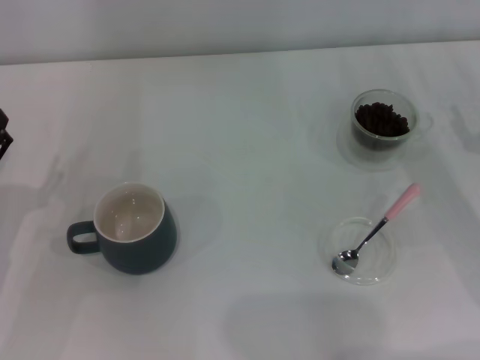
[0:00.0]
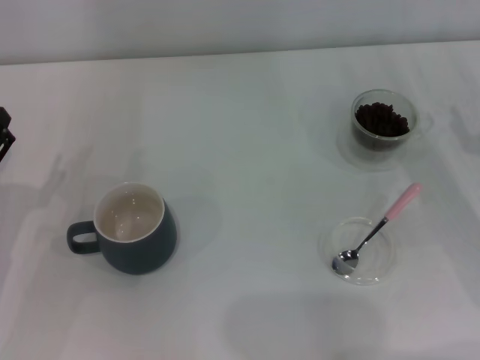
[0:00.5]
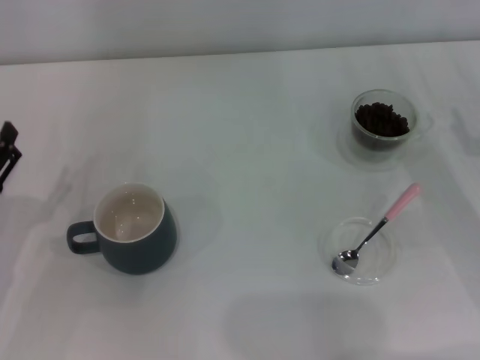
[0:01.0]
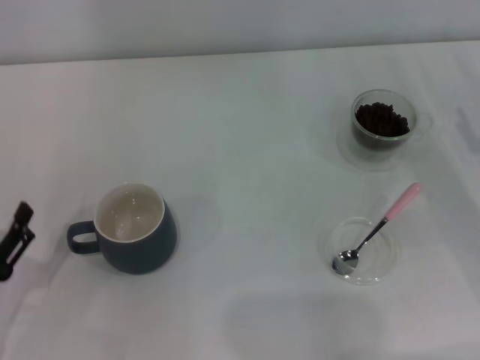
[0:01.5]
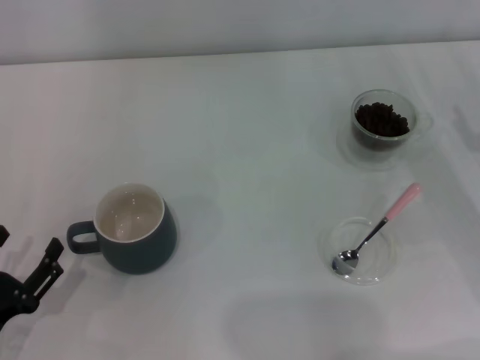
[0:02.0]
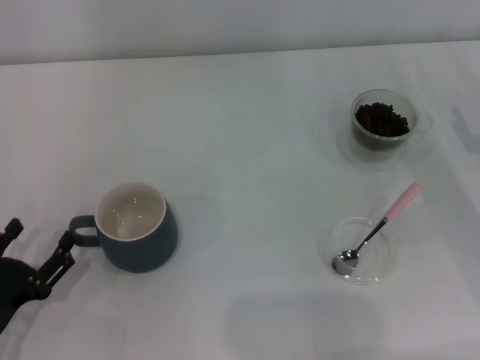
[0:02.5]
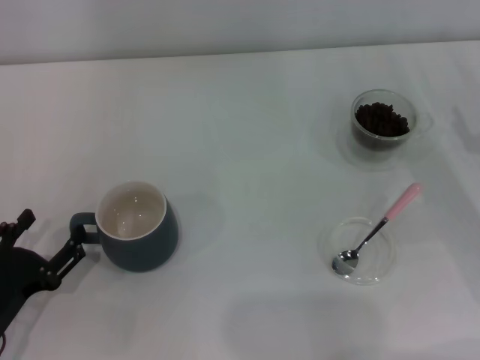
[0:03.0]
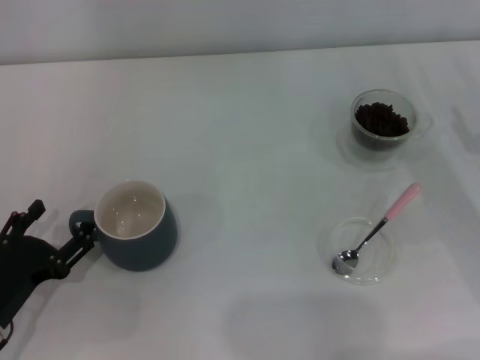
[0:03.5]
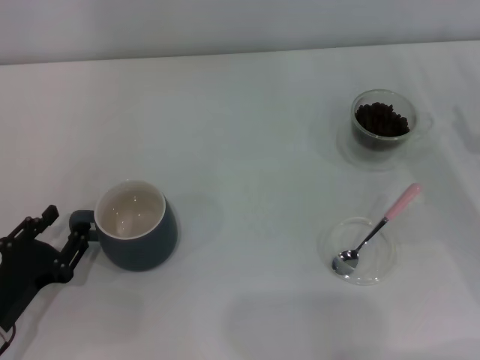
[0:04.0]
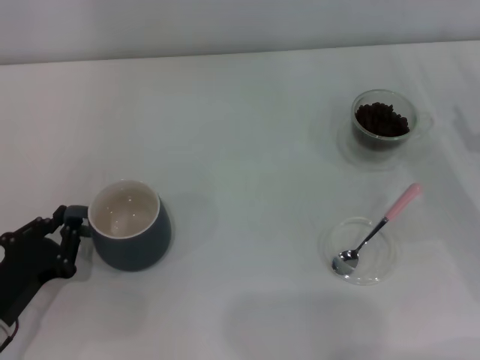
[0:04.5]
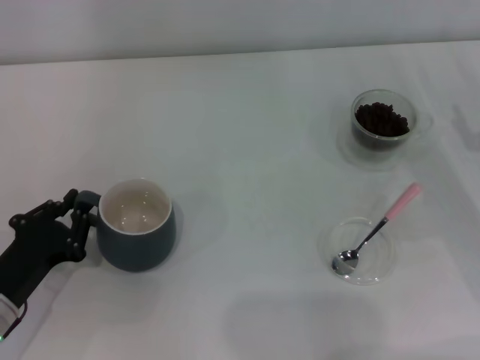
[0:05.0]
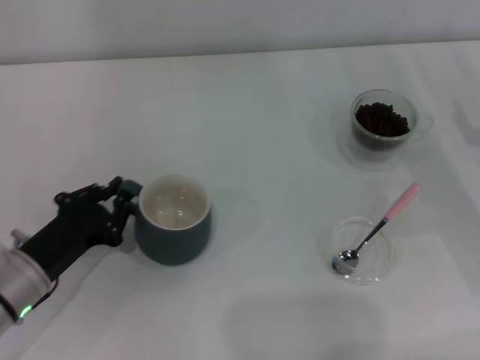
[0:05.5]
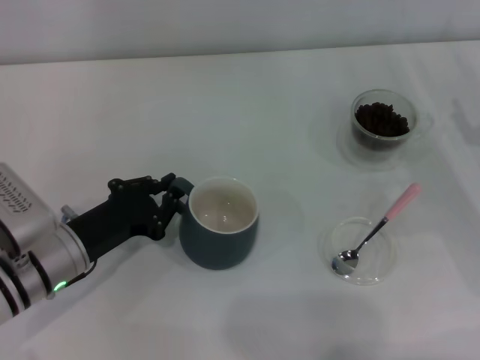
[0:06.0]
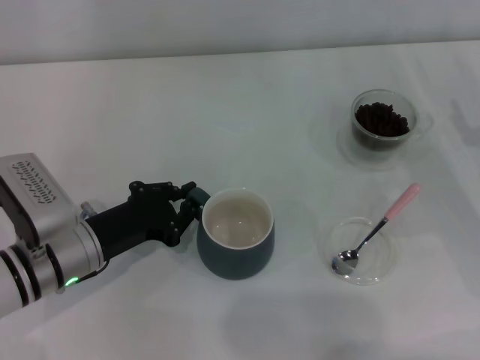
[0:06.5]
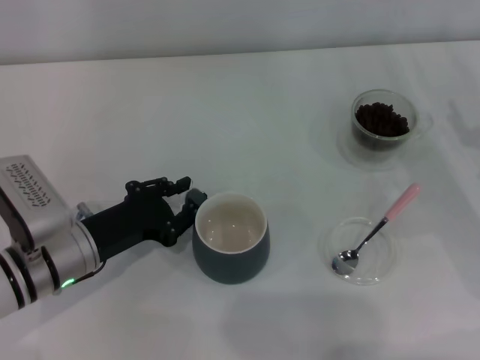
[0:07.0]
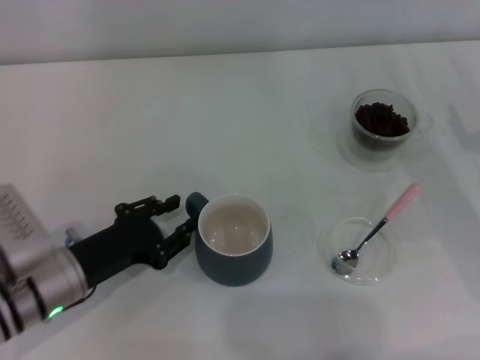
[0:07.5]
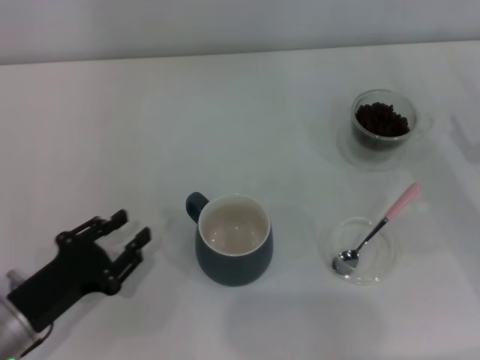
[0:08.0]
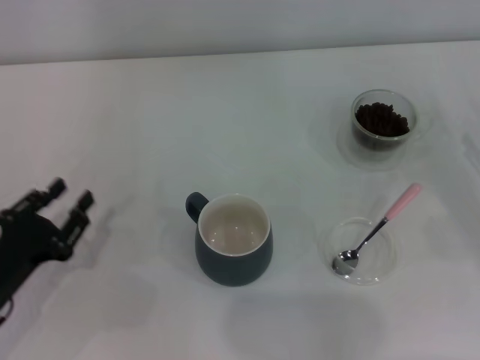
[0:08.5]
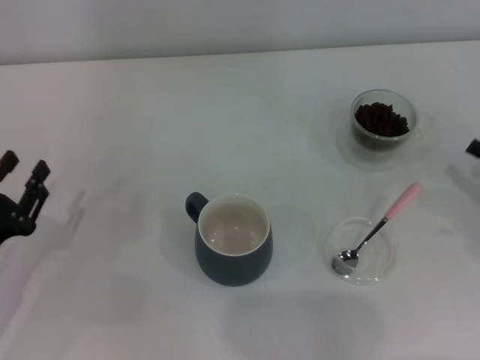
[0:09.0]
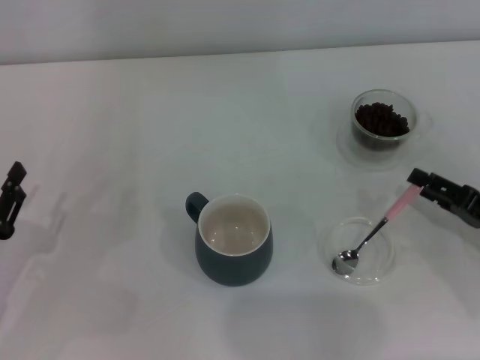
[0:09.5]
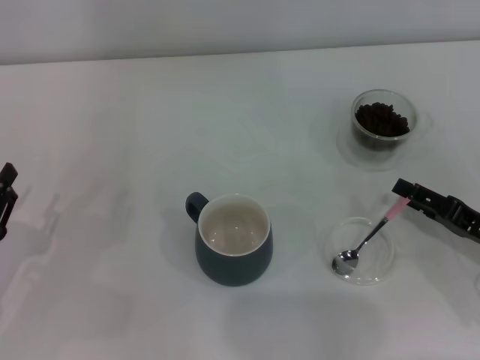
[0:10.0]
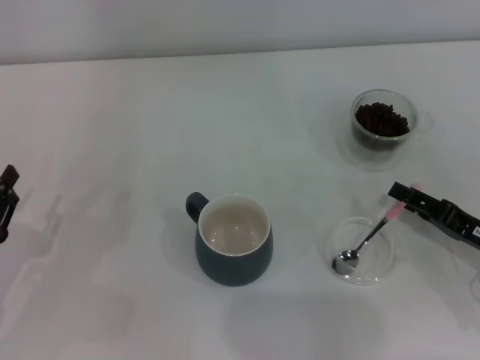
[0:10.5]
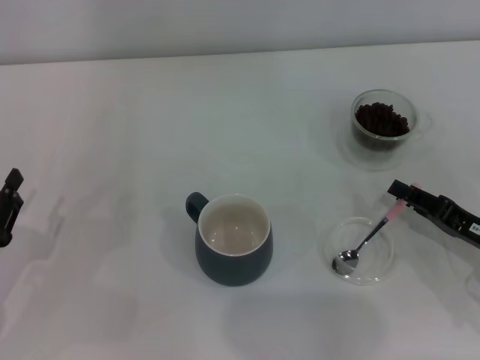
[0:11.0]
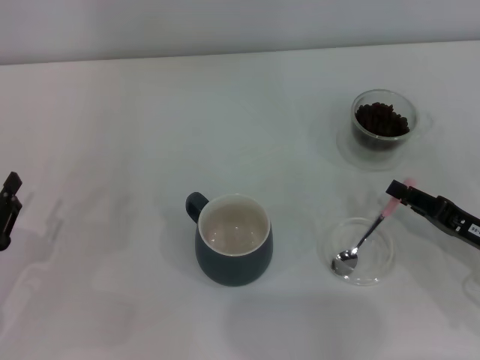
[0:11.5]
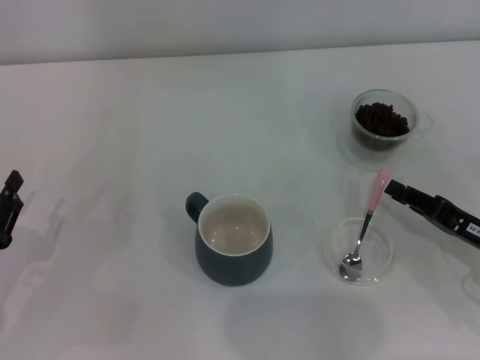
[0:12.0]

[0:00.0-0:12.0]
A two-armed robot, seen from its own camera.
Task of the whole recording: Use a pink spoon to take out the coffee beans from the glass and pour them into the gray cup.
Step, 0:00.0 to 0:07.5: Move the cup to the center of view with the left gripper.
0:00.0 to 0:02.0: The left gripper goes about 10 cm backward.
0:02.0 to 0:04.0: The left gripper moves about 5 cm.
0:04.0 to 0:06.0: The left gripper heads forward and to the right, covering roughly 10 cm, and closes.
0:06.0 to 0:08.0: The left gripper travels backward by roughly 5 cm, and opens its fingers.
0:08.0 to 0:10.0: The right gripper ends up some 5 cm from where it was. The left gripper heads to the left, covering about 5 cm.
0:10.0 to 0:12.0: The right gripper closes.

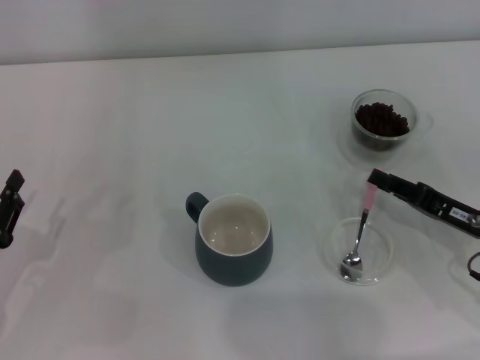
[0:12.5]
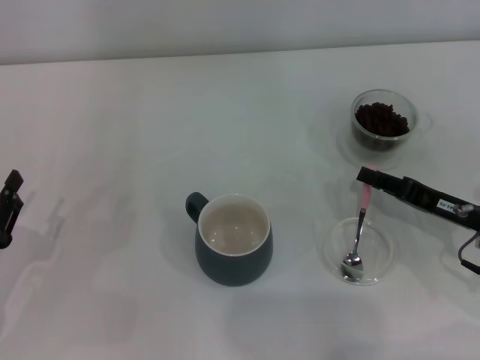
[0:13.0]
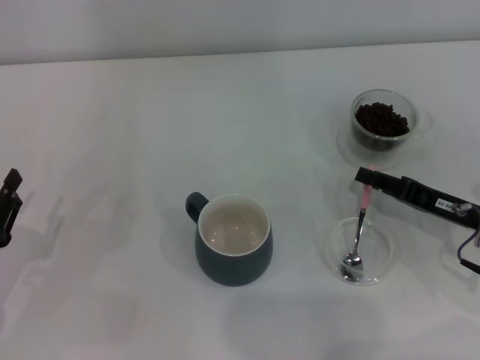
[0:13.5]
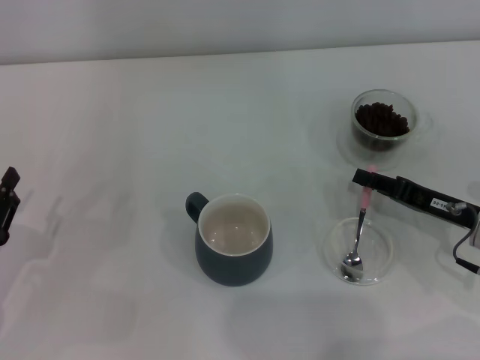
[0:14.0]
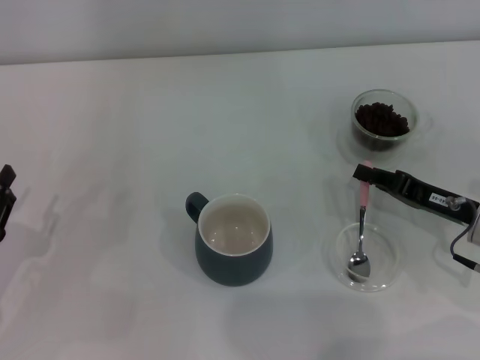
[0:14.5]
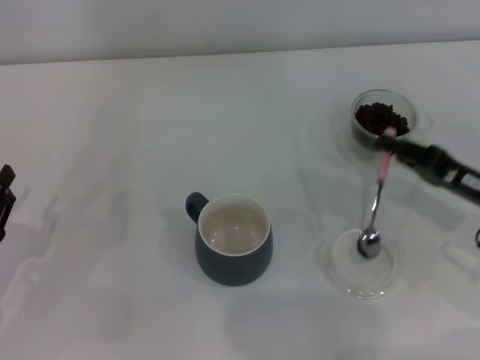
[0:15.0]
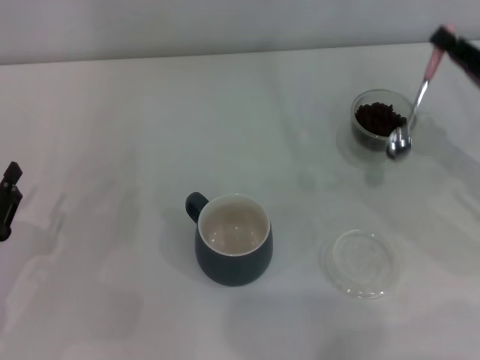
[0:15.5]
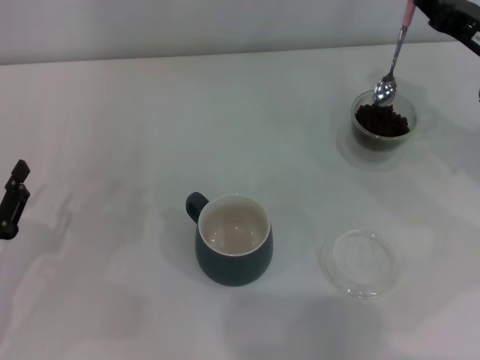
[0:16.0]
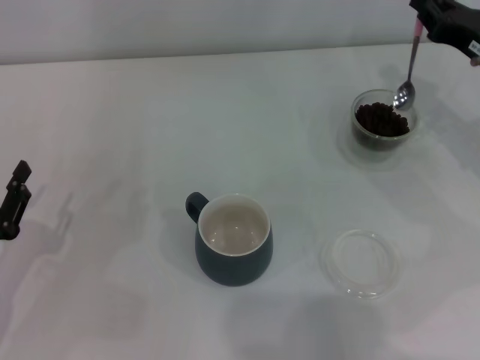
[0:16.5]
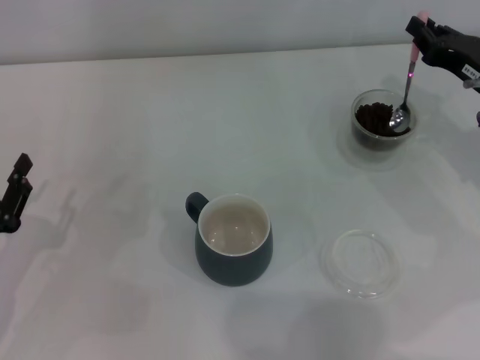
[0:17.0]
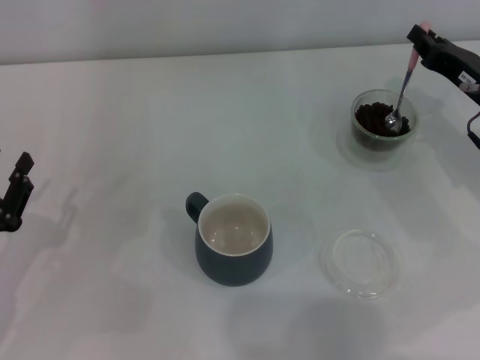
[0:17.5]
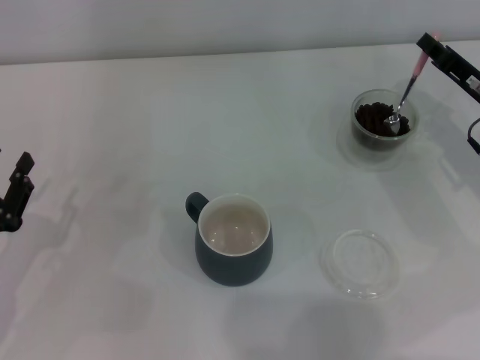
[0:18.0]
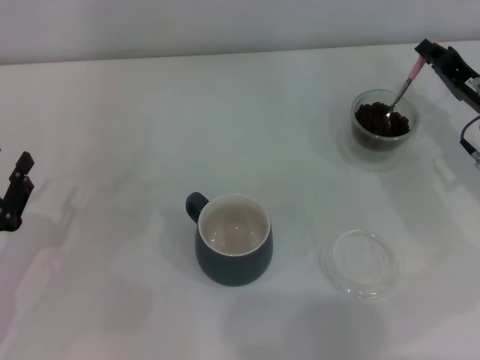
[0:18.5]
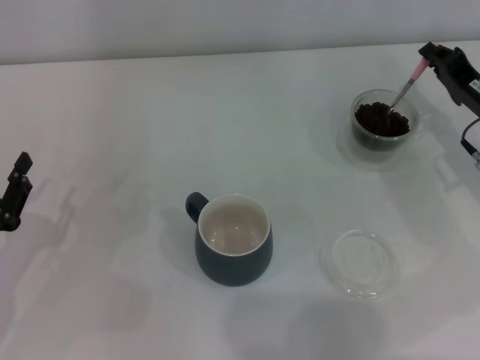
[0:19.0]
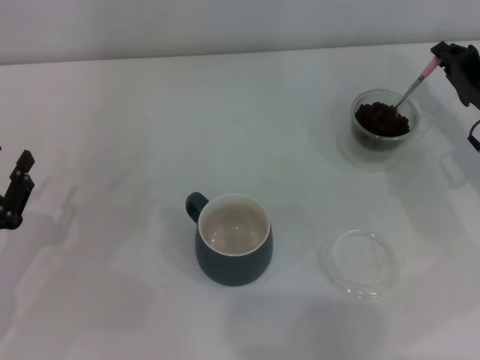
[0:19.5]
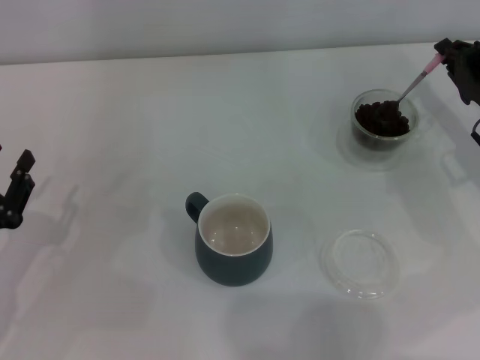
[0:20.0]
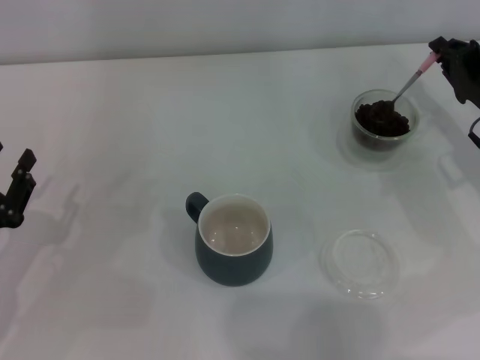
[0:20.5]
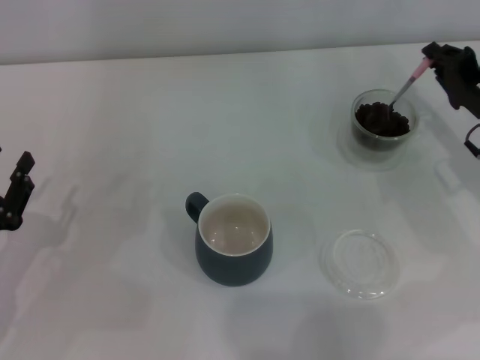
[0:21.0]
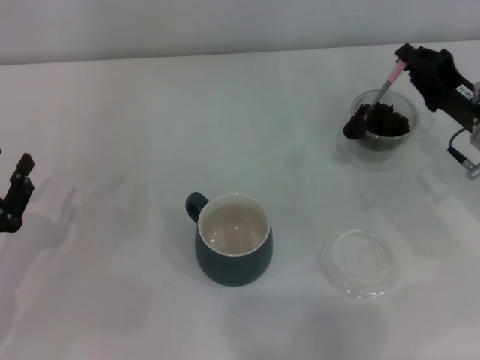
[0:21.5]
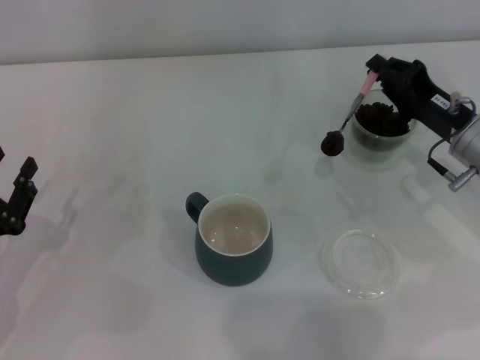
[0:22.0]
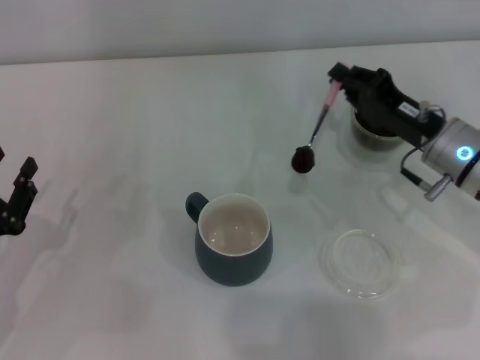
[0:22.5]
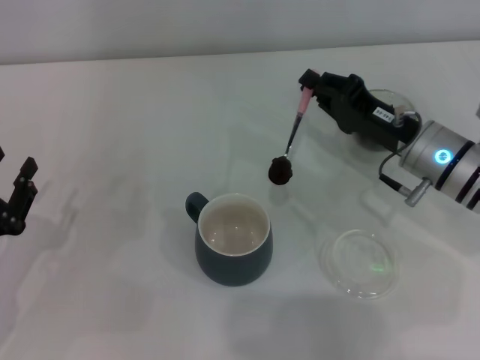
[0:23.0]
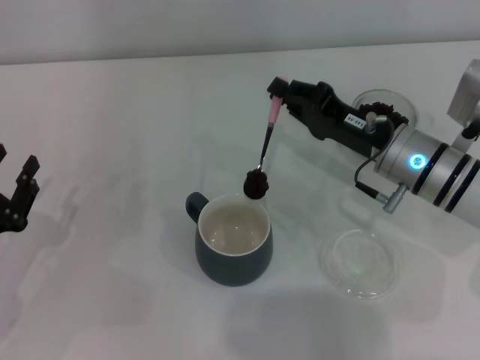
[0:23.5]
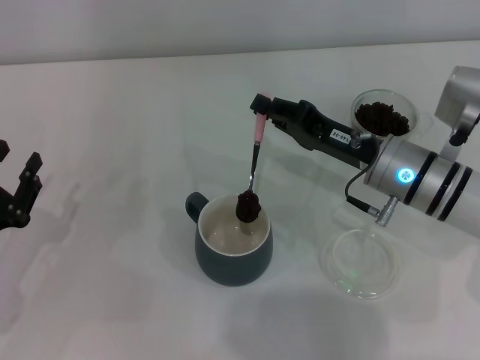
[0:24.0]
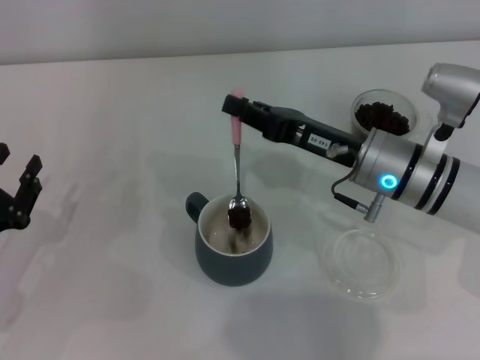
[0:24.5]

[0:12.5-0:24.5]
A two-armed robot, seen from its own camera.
Task of the whole recording: Use a pink spoon to take out the coffee beans from the glass and pour them into the gray cup.
Step, 0:12.5 to 0:15.0: Pick up the spoon with the right gripper.
0:12.5 to 0:14.5: There are only small adjustments of the grippers.
0:14.5 to 0:16.5: The right gripper moves forward and upward, about 15 cm.
0:18.5 to 0:20.5: There are only small adjustments of the grippers.
0:20.5 to 0:22.5: The right gripper travels to the left by roughly 5 cm.
0:22.5 to 0:24.5: The right gripper goes some 10 cm to the left.

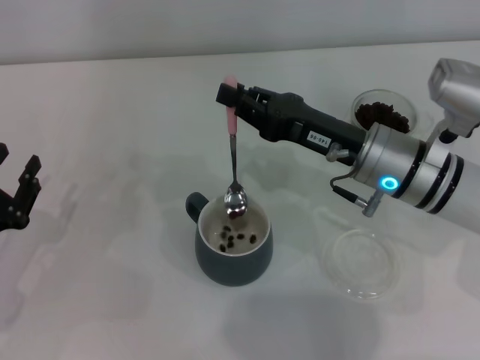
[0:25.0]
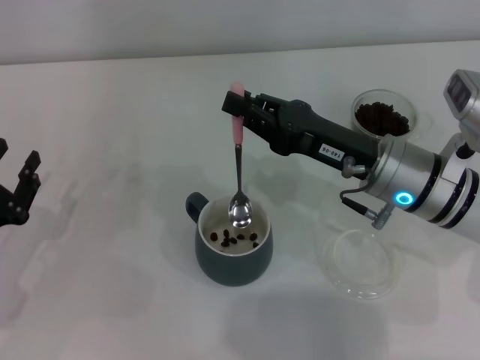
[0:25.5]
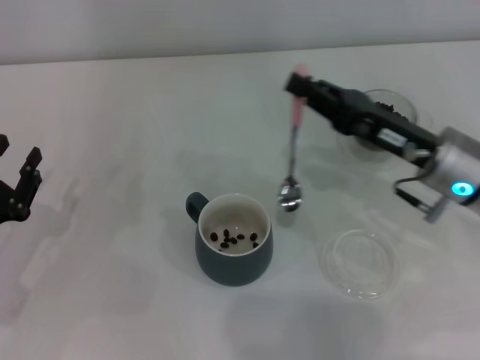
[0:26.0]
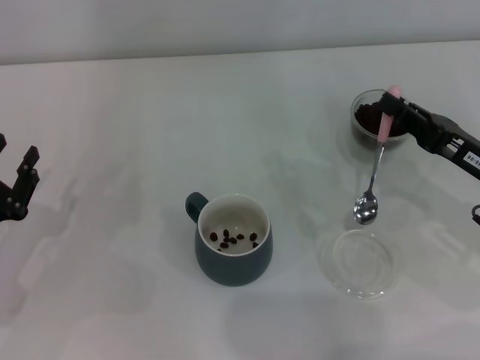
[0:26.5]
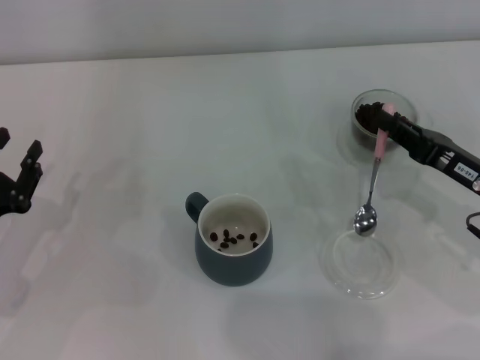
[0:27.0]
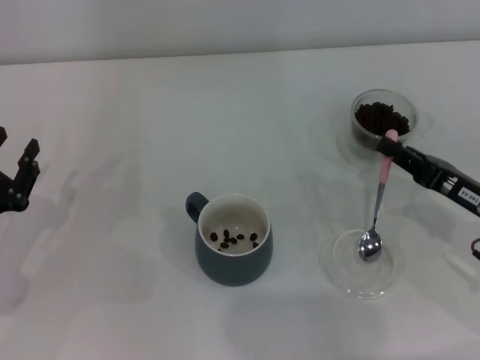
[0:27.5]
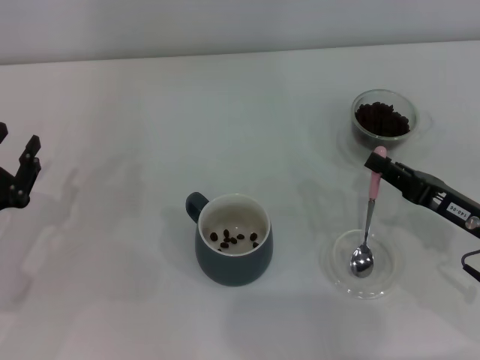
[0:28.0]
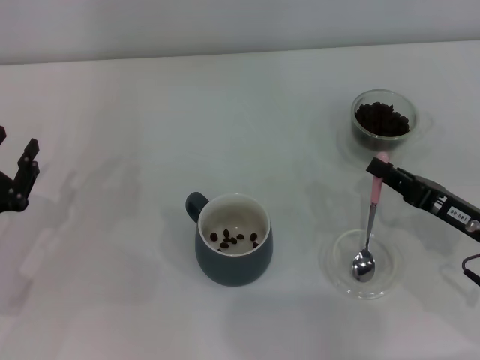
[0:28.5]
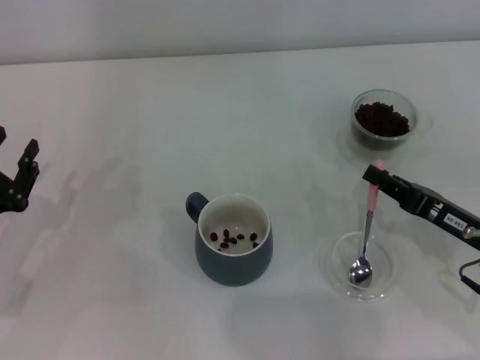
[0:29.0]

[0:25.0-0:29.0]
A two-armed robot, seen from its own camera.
Task of the whole recording: Use a pink spoon to take out the coffee beans from the glass and pour them into the gray cup.
0:25.0 to 0:27.0: The right gripper goes about 15 cm to the right and backward.
0:27.0 to 0:29.0: The grippers make only small movements.
